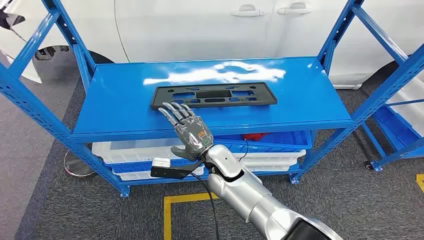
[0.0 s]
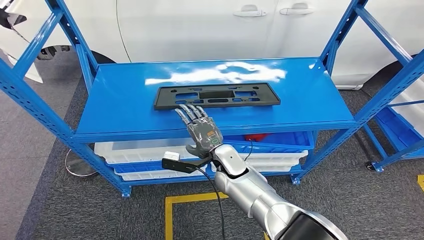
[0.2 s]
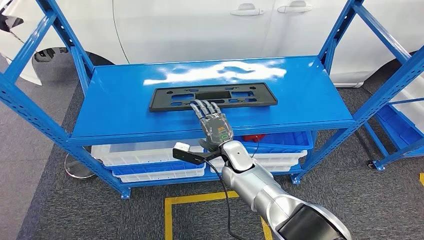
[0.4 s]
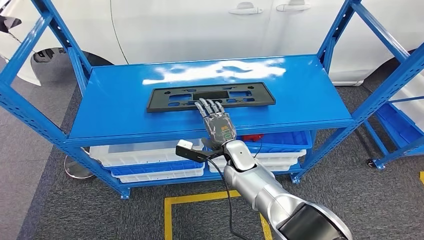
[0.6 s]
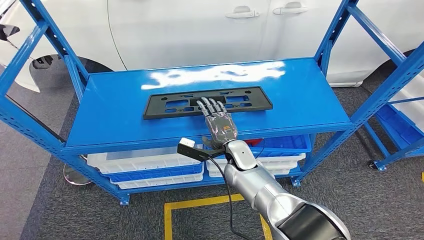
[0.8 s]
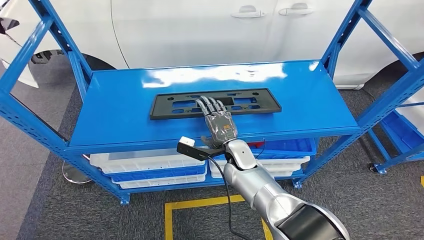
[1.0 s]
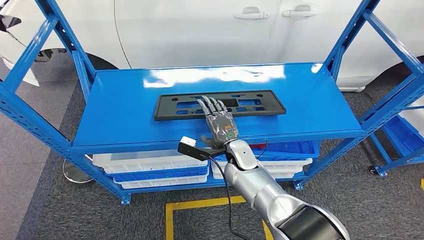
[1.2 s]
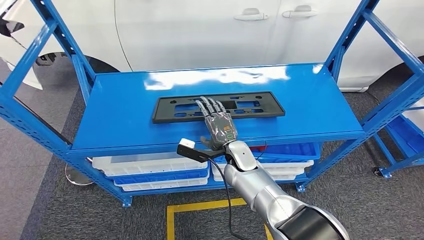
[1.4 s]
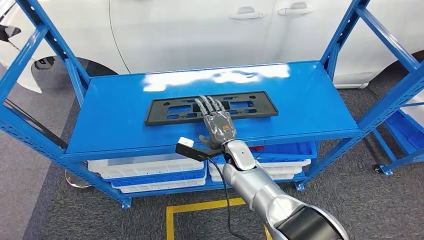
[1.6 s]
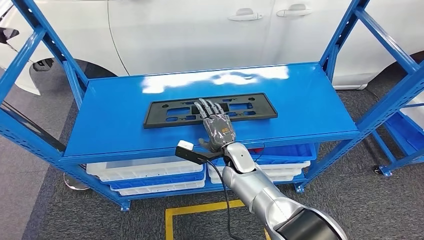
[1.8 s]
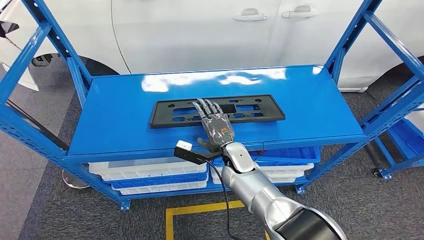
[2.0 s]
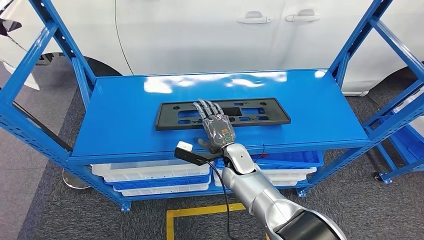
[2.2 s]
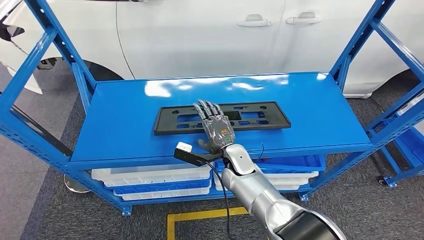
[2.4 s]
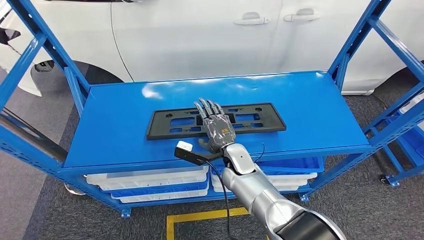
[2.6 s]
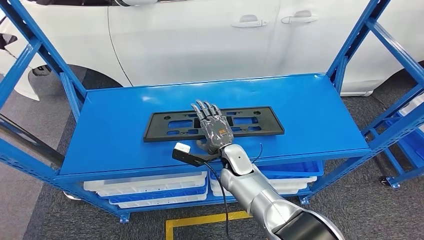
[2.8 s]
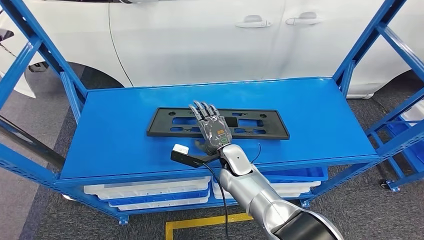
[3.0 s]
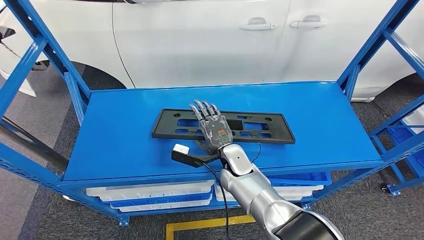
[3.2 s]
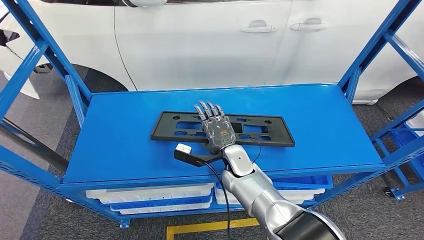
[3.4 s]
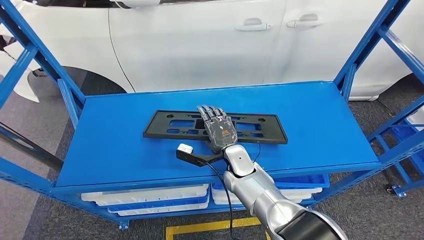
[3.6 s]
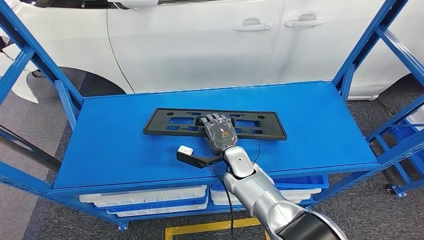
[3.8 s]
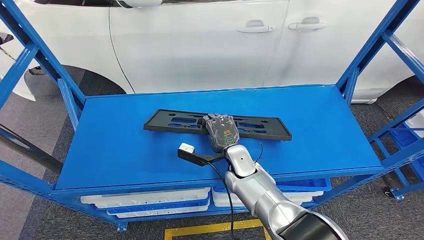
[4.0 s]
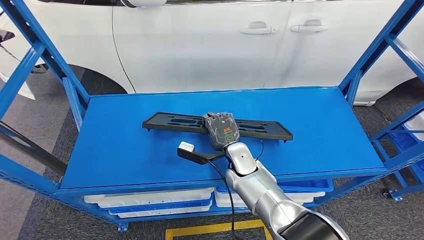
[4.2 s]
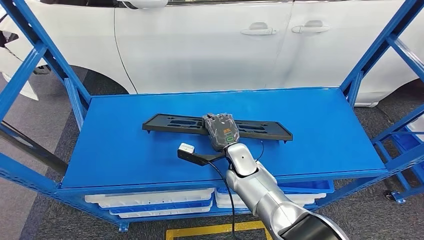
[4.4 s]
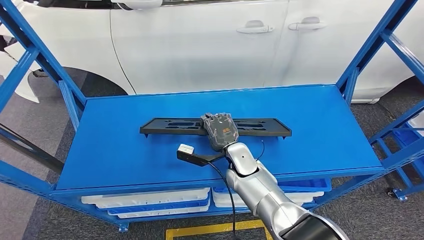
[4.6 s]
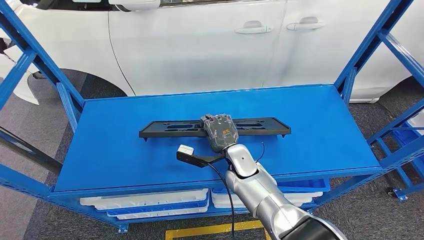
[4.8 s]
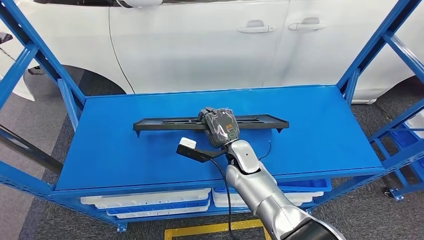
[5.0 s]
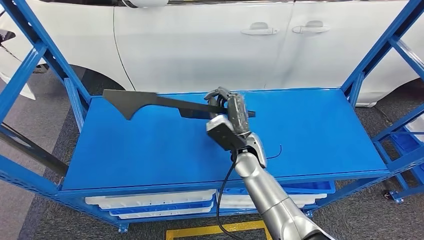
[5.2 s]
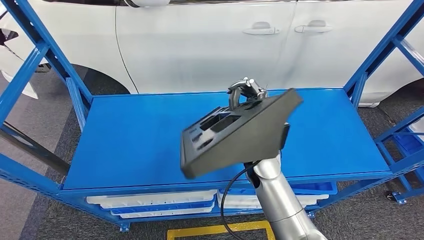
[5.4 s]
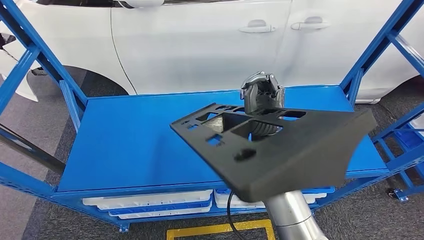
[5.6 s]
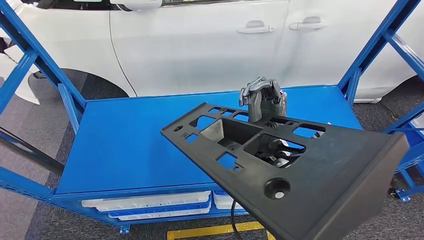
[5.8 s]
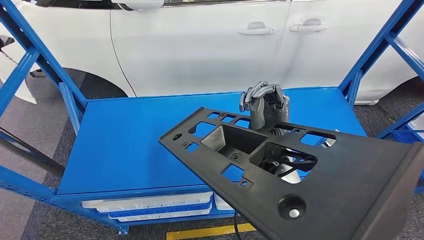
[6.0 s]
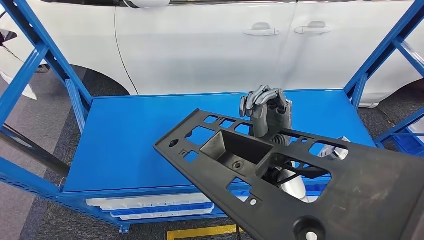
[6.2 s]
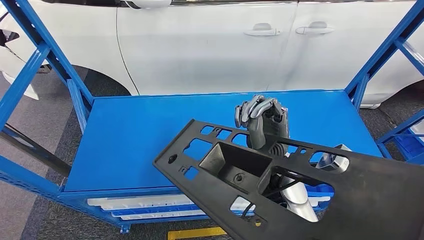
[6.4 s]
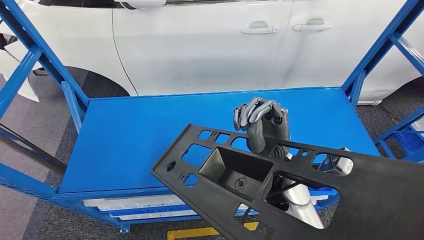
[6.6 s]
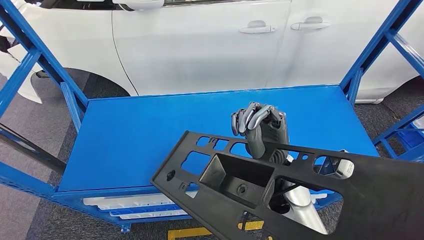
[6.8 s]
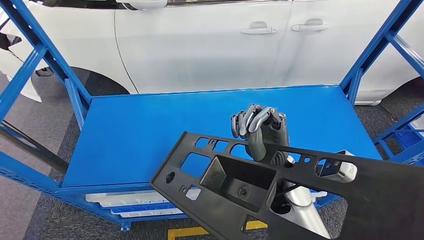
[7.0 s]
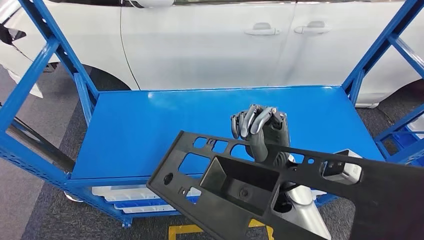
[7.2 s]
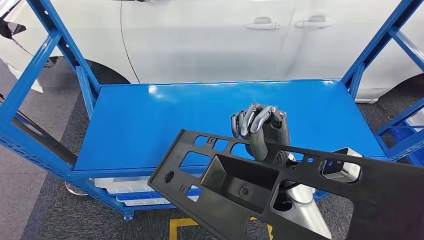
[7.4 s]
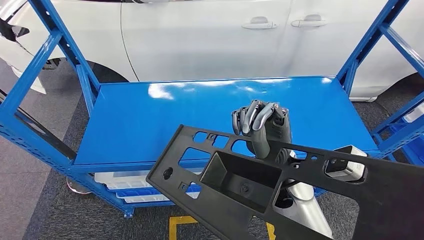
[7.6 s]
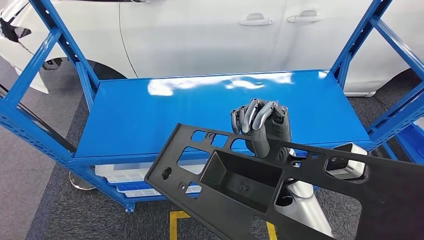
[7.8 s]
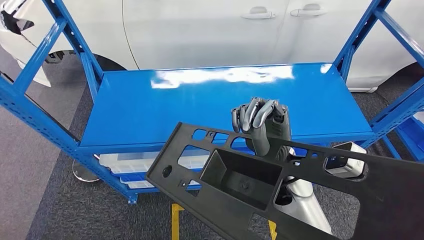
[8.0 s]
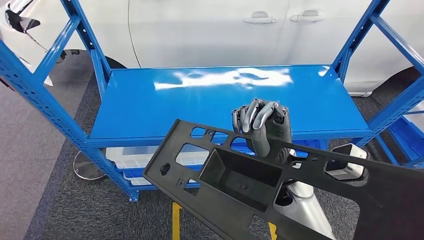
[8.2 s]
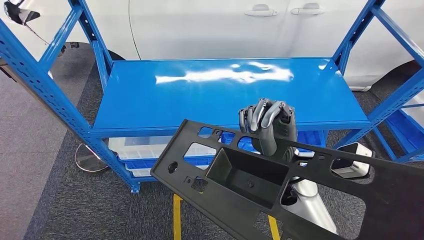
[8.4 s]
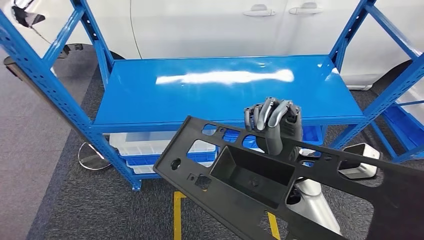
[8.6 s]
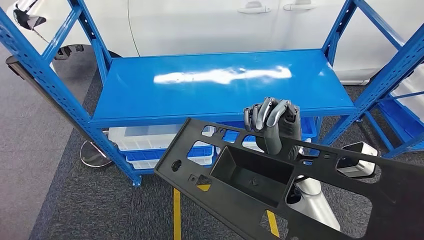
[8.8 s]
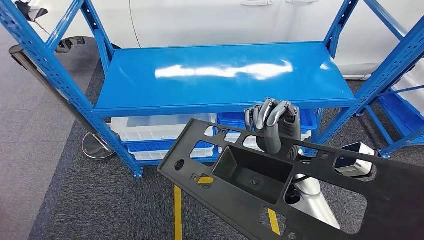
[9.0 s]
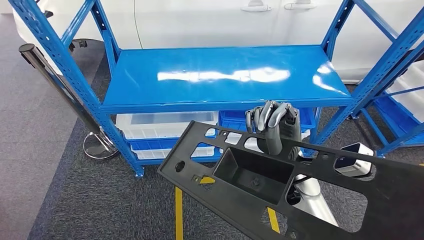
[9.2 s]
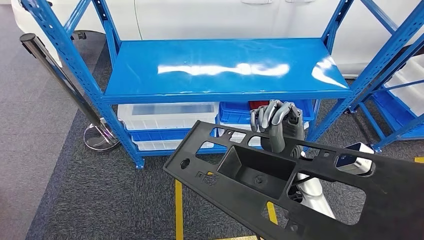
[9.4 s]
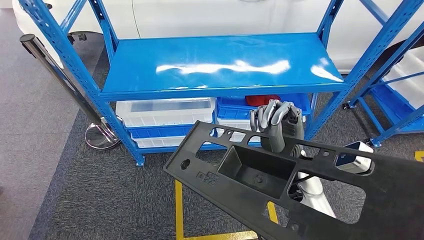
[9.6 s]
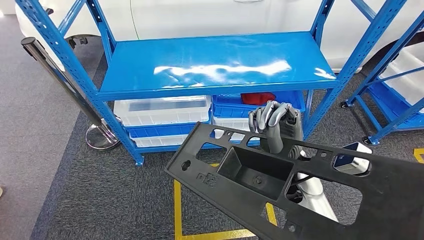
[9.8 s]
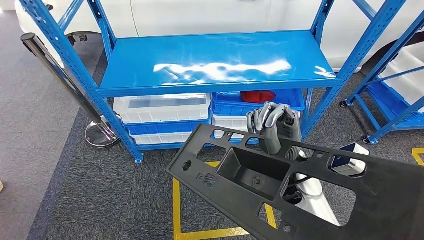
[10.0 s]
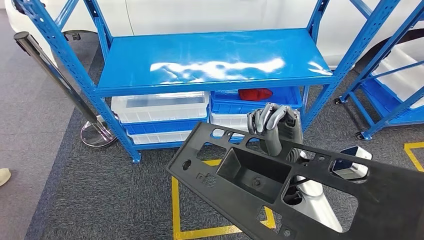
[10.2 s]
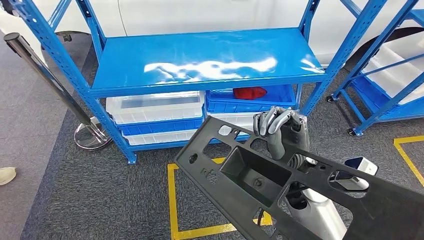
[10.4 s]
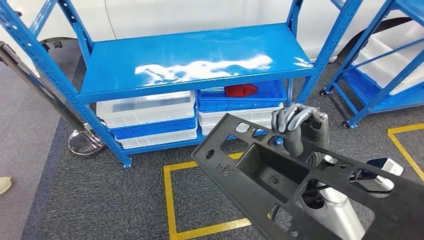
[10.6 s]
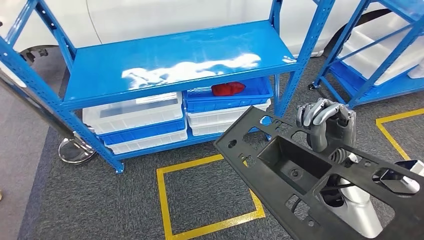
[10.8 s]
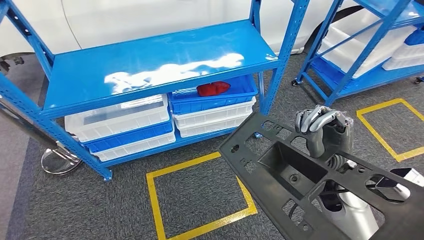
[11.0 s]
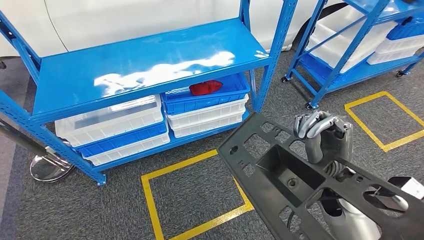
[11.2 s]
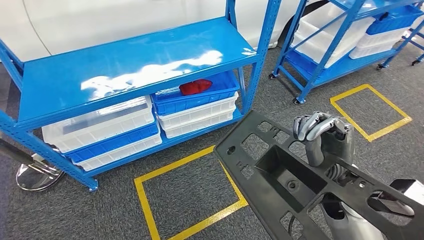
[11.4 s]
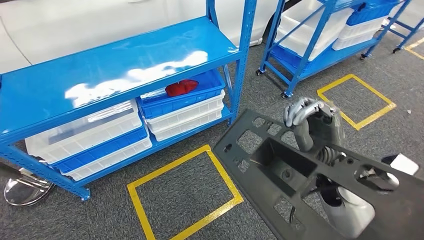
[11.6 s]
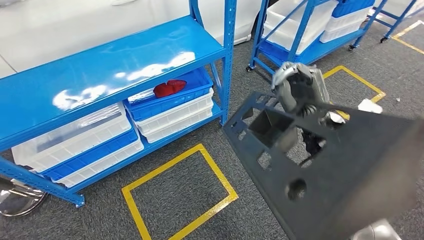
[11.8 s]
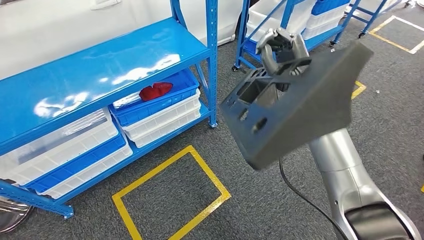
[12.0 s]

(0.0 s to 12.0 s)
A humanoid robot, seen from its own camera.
Step, 0.0 s - 6.8 s: Pick up the small parts from the shelf.

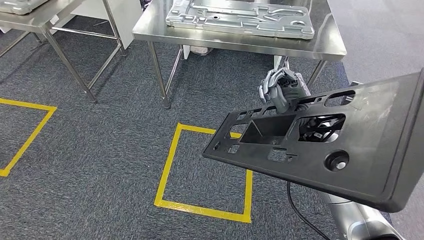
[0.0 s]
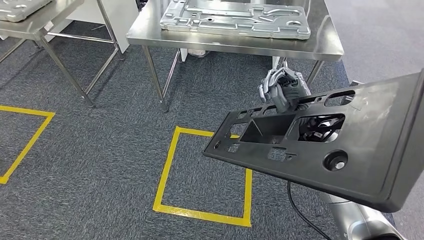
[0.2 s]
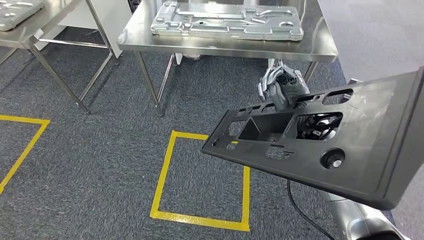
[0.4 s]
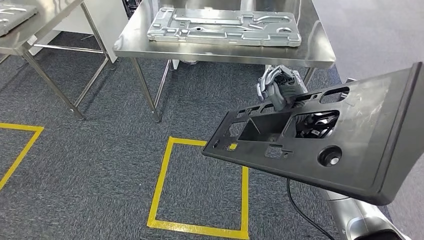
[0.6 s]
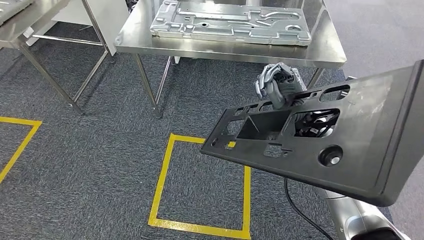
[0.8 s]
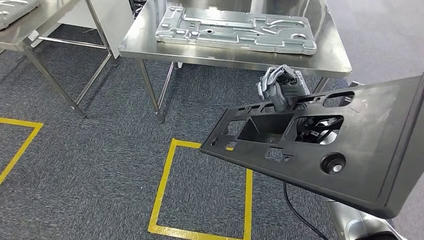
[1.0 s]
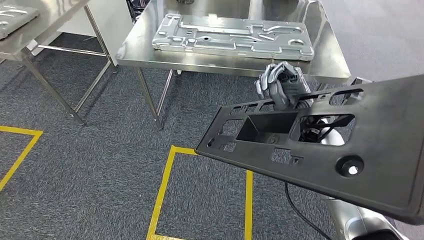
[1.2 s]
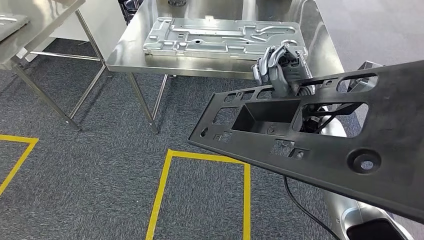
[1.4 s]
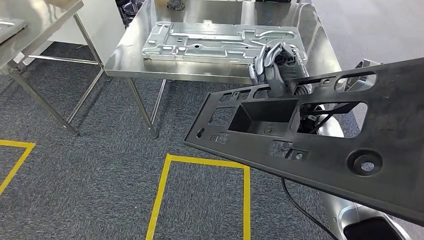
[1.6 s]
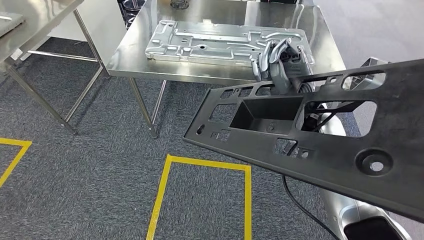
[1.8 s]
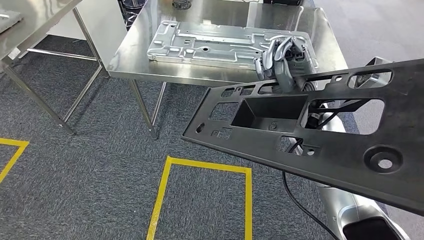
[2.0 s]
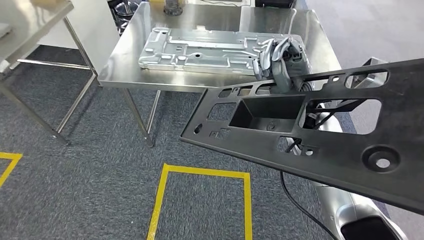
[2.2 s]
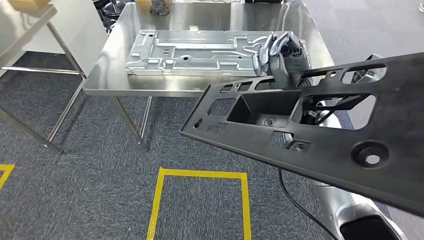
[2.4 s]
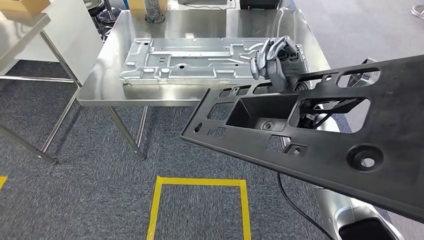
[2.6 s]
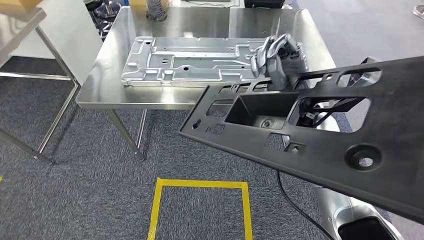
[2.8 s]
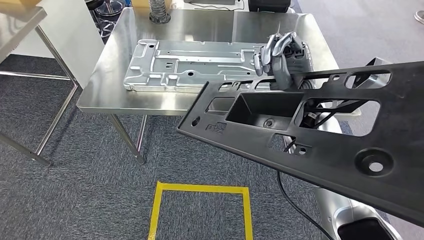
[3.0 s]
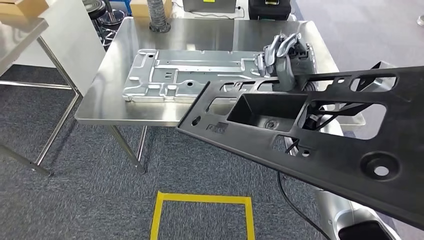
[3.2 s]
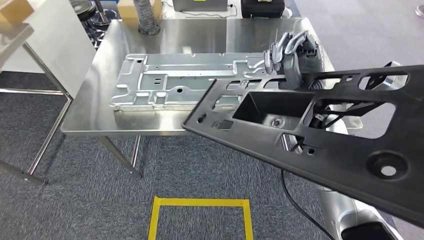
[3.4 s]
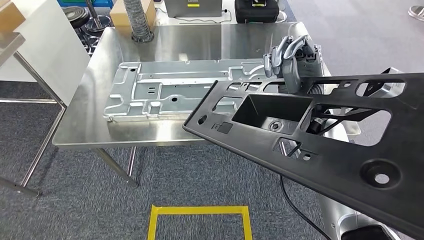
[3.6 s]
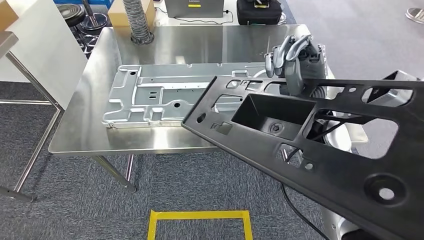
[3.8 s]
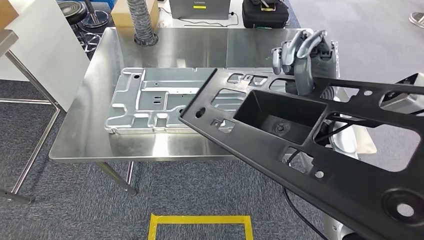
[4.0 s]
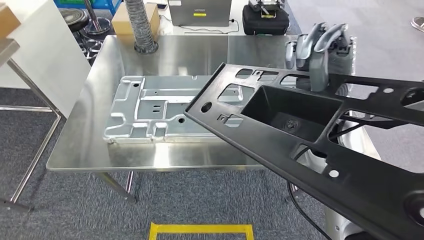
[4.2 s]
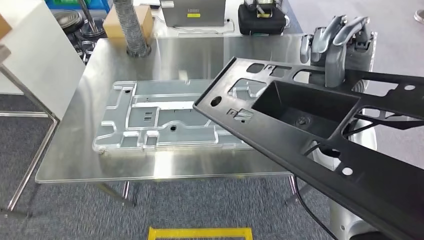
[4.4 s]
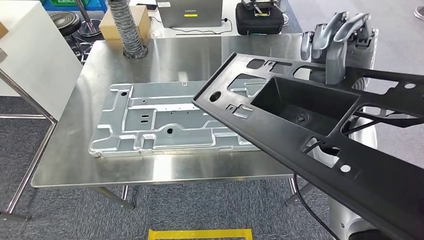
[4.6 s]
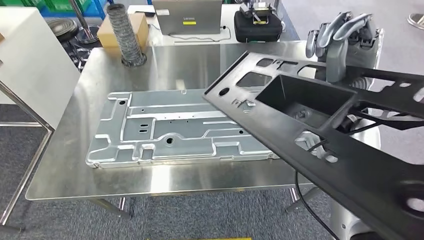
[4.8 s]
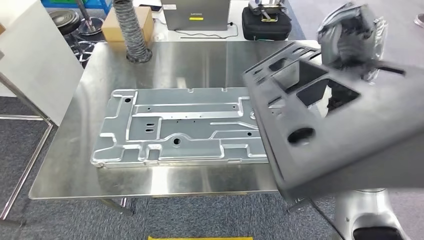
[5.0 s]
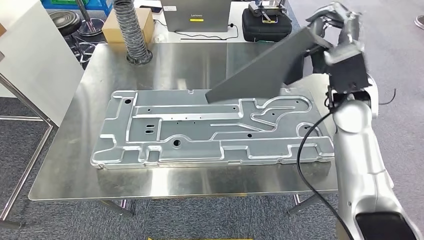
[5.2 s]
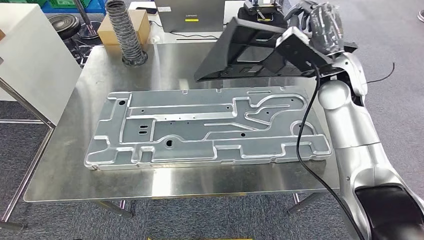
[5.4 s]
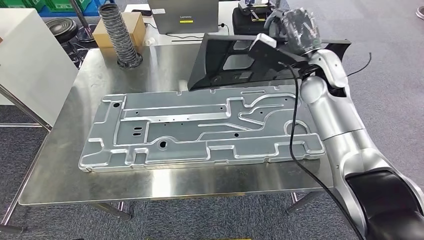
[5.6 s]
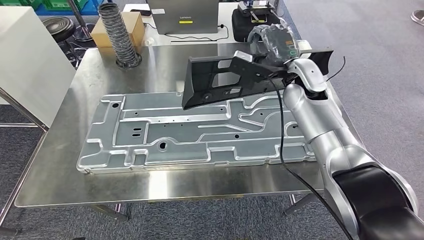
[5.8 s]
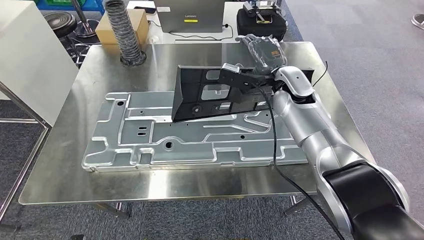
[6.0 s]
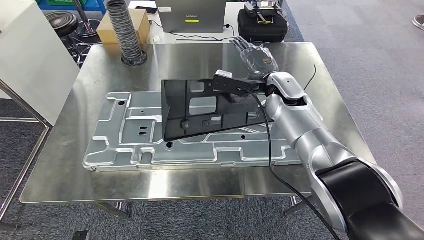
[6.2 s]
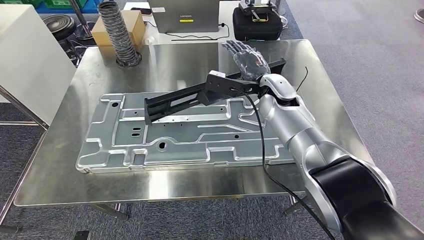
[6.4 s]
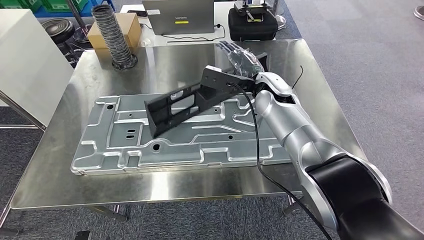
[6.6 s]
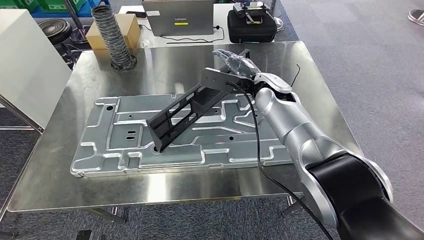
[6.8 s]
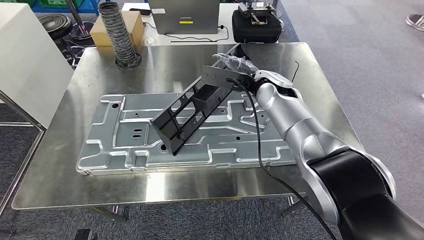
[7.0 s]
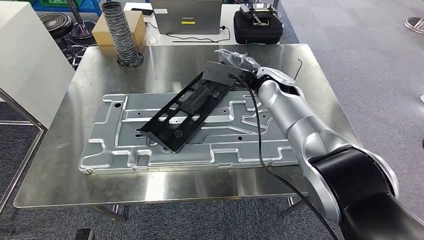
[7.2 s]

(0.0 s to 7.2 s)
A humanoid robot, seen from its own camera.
Step, 0.0 s - 3.6 s: Move the small parts to the workbench.
